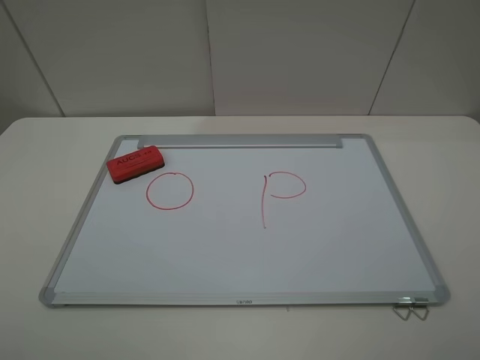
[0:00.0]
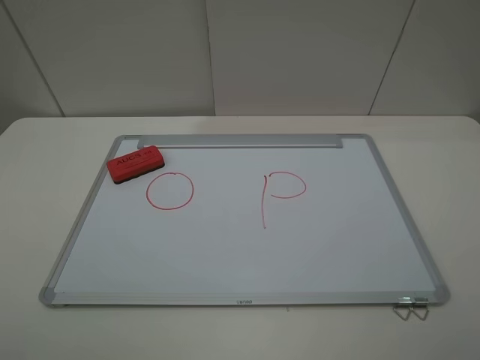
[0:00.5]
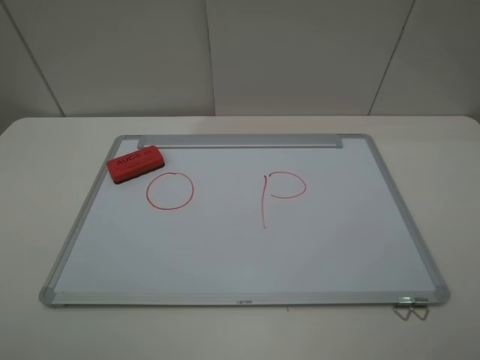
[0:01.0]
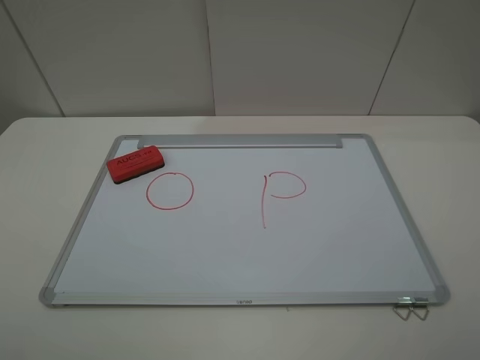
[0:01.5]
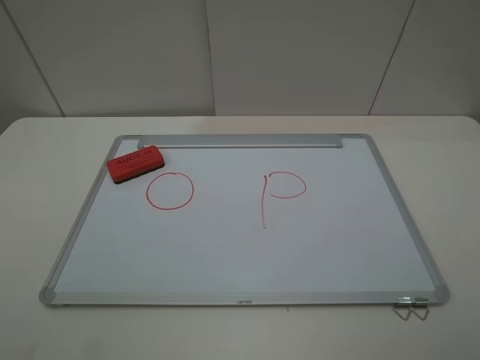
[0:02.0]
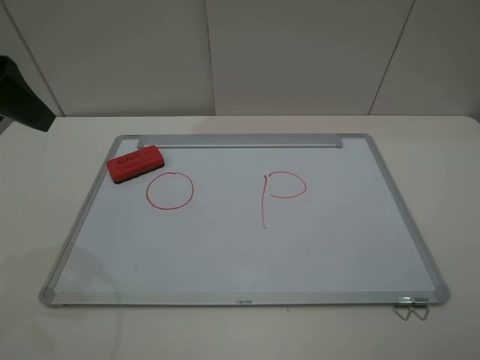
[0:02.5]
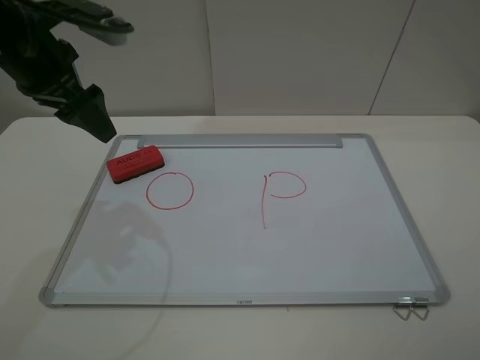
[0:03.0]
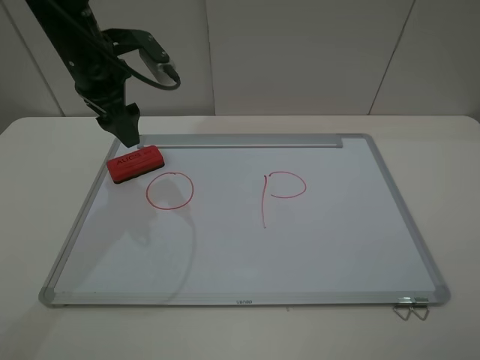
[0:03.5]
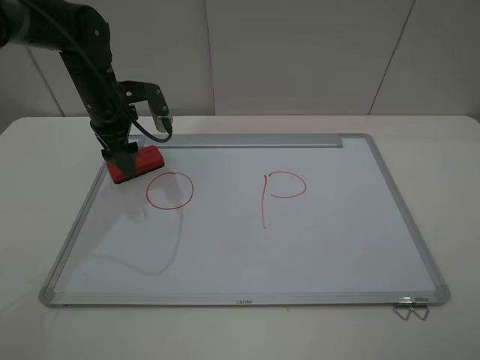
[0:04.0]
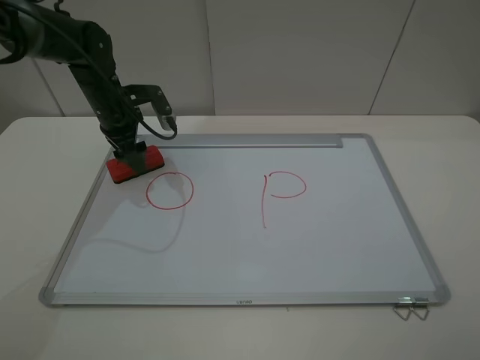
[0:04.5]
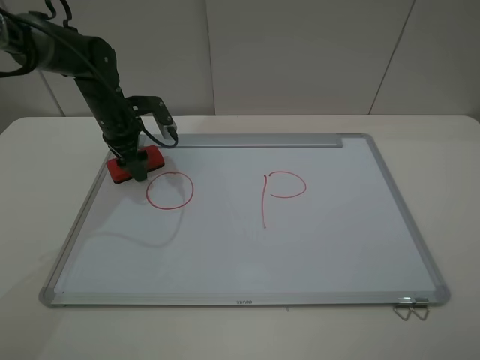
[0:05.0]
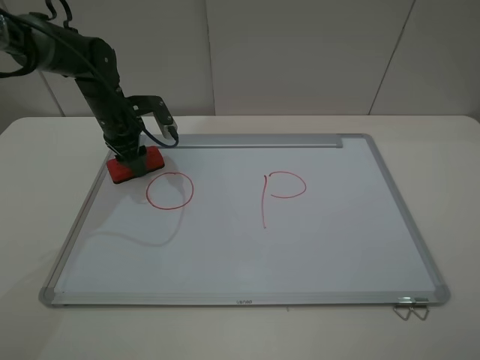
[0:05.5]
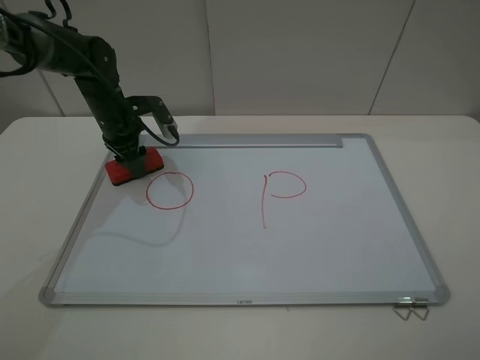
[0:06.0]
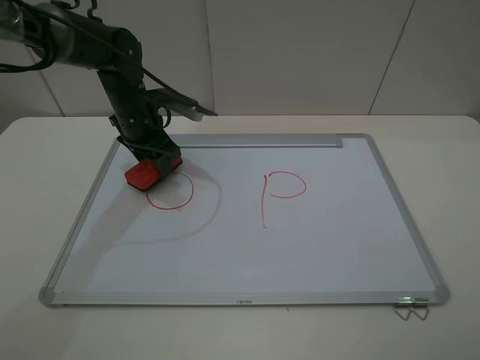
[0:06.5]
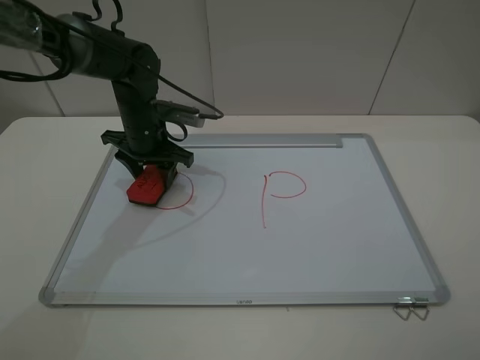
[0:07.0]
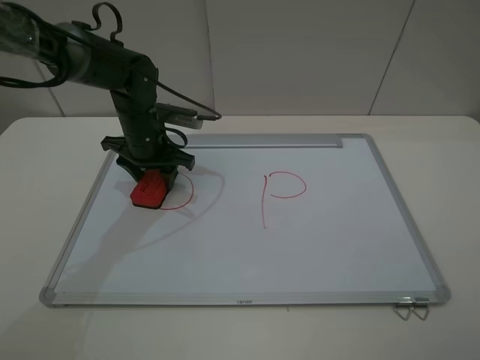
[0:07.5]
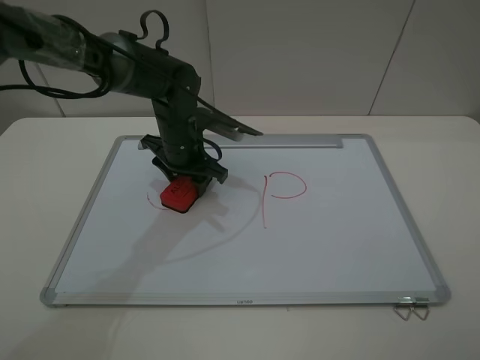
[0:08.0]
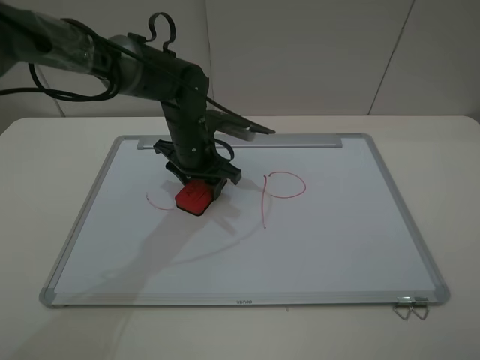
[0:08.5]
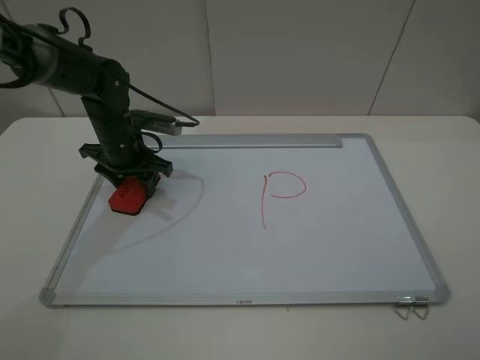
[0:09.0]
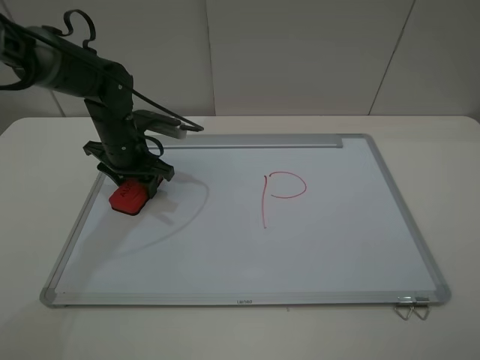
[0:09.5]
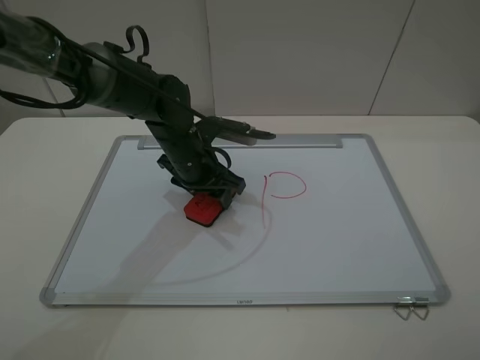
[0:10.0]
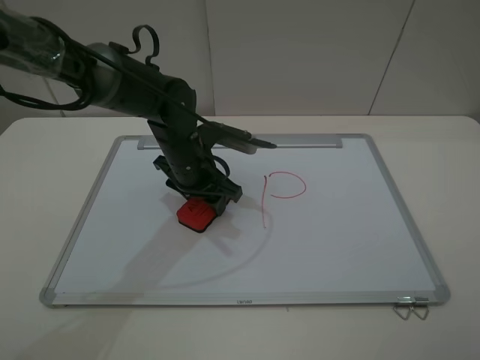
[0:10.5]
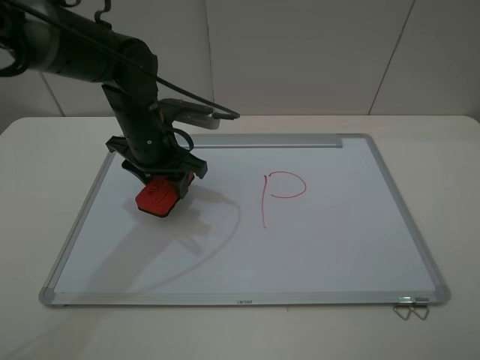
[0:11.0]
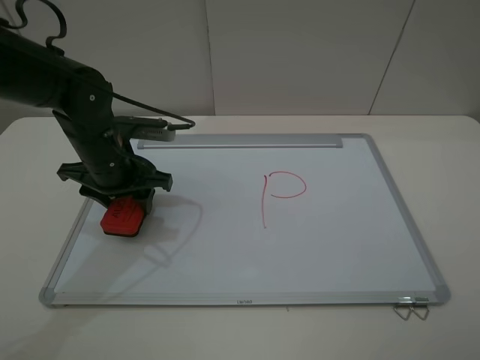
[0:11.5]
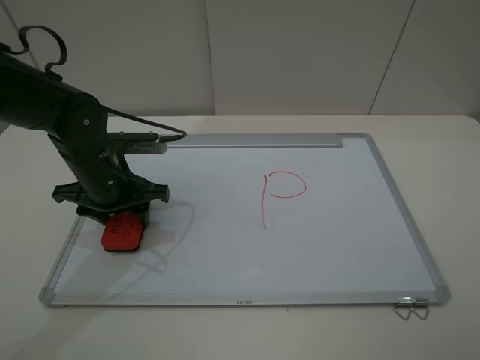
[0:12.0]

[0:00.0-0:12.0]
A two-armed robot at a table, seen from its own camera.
Step, 0:00.0 to 0:05.5: Grasp the eraser with the left gripper.
Step, 0:06.0 to 0:10.5: Grasp the eraser and wipe the blackboard with the left gripper.
0:02.0 to 0:04.0: The left gripper shifts approximately 35 cm forward and downward.
0:04.0 to 0:06.0: The left gripper changes place by some 5 cm, and closes its fingers.
0:06.0 to 0:08.0: The left gripper goes about 15 cm to the right and backward.
0:08.0 to 0:10.0: The left gripper goes to the left and returns, roughly 10 cm each way.
0:10.0 to 0:12.0: The left gripper goes about 10 cm to the left.

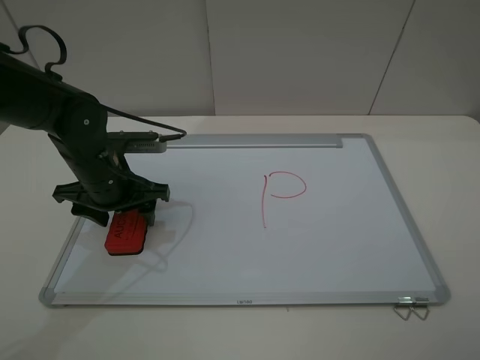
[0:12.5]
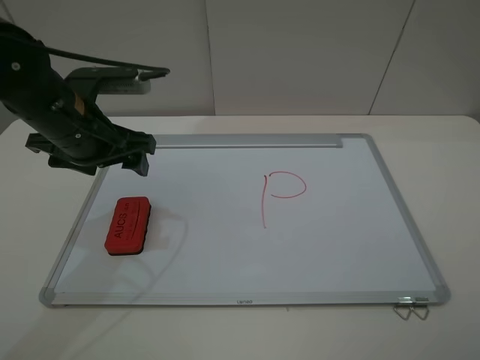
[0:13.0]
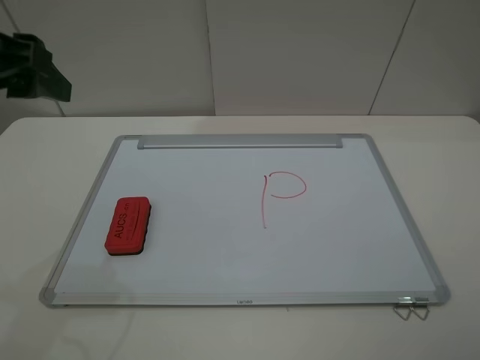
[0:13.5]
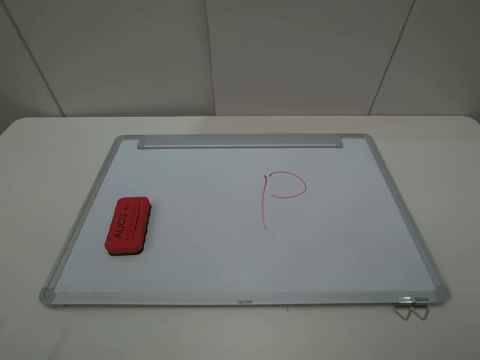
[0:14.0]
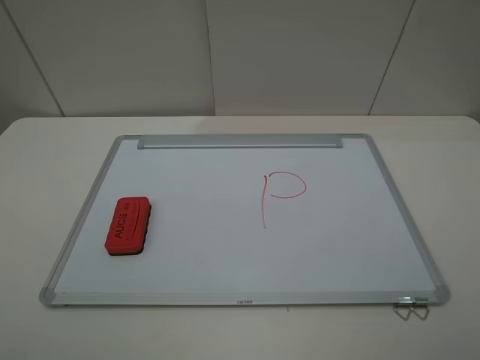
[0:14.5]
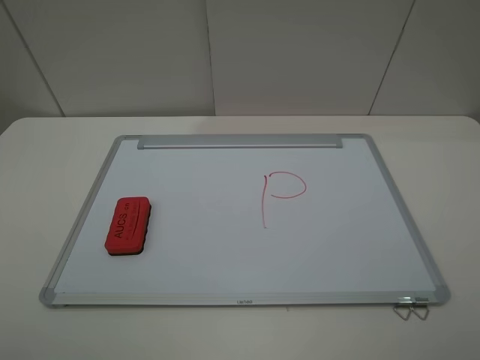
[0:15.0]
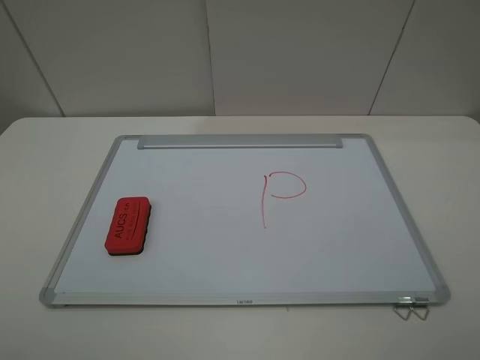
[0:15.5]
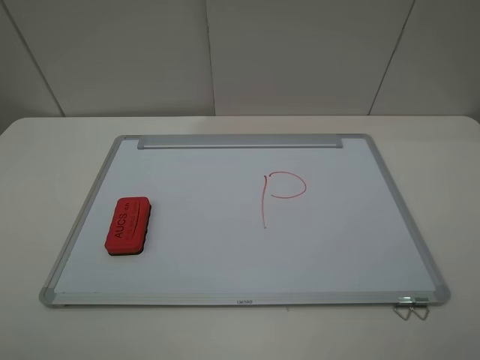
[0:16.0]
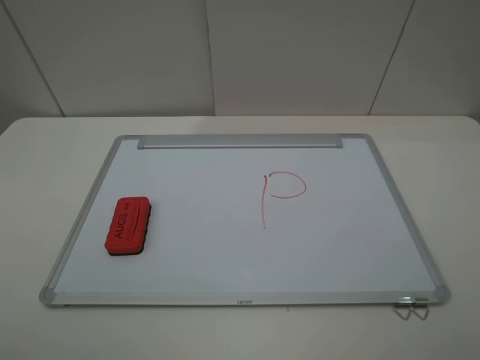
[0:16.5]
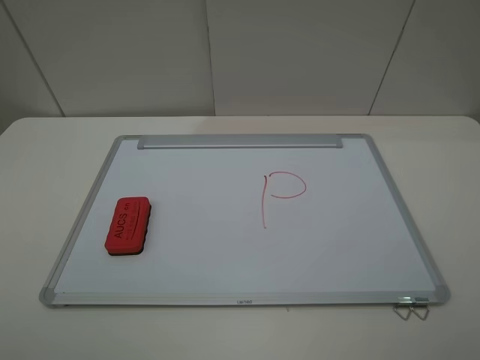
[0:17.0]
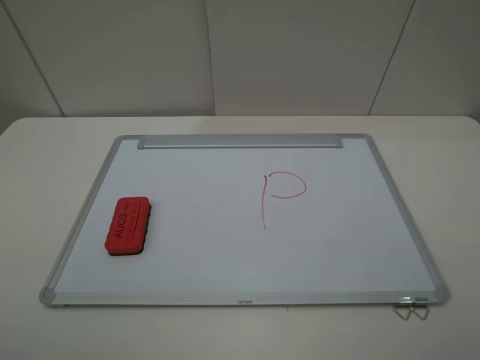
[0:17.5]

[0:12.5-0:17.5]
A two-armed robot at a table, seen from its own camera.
0:12.5 to 0:15.0: The left gripper heads backward, upward and to the left, covering some 35 cm.
